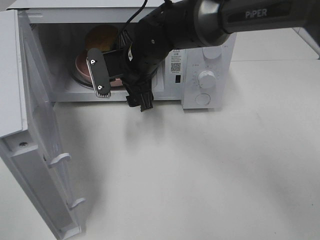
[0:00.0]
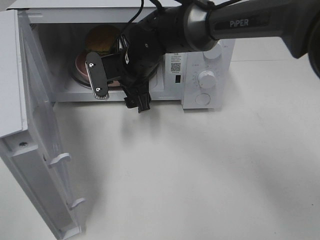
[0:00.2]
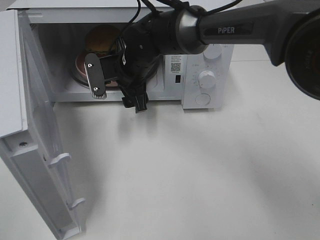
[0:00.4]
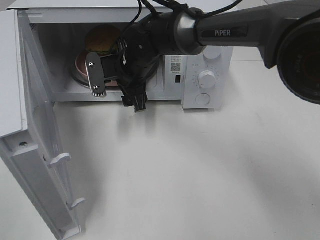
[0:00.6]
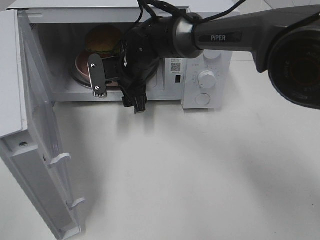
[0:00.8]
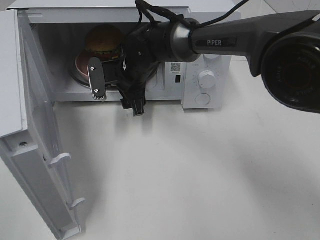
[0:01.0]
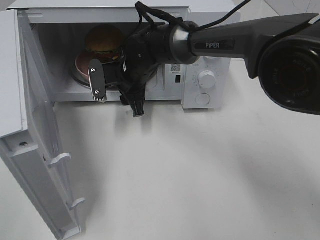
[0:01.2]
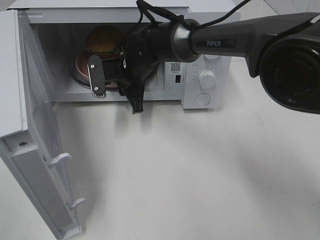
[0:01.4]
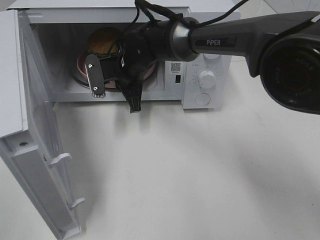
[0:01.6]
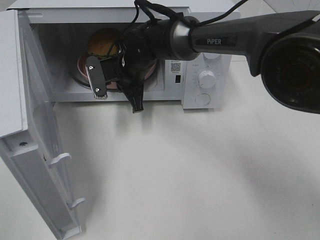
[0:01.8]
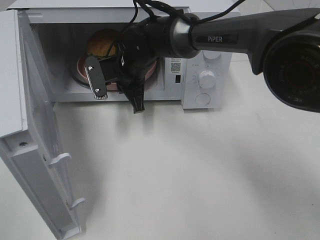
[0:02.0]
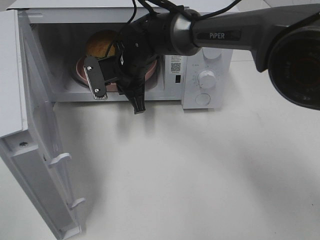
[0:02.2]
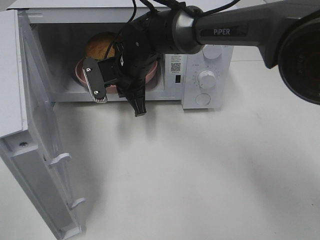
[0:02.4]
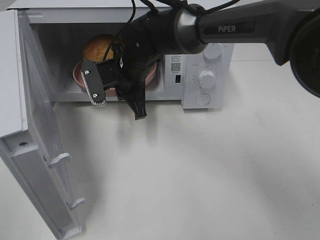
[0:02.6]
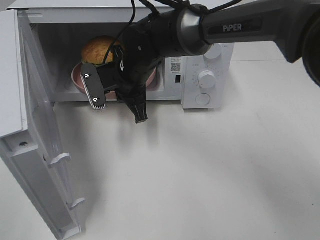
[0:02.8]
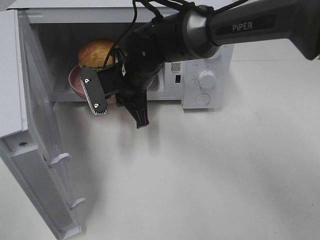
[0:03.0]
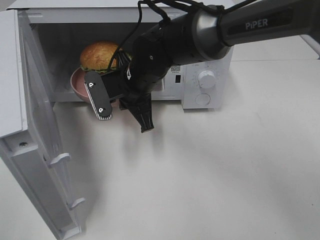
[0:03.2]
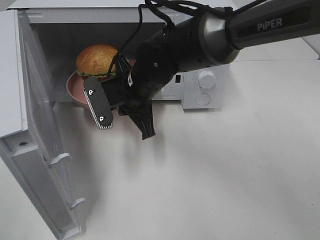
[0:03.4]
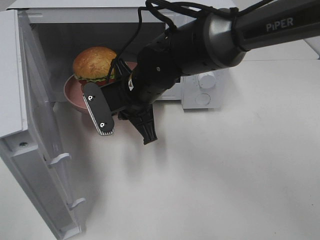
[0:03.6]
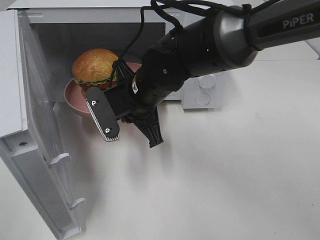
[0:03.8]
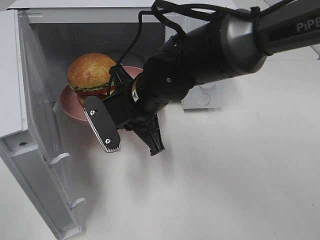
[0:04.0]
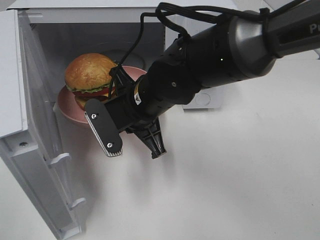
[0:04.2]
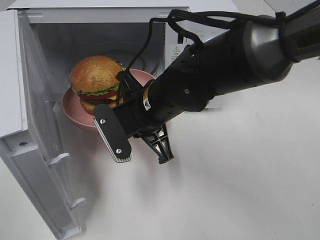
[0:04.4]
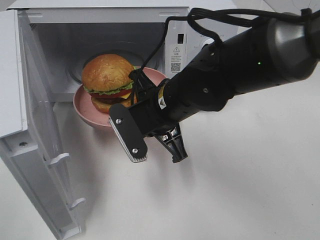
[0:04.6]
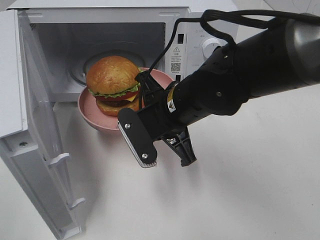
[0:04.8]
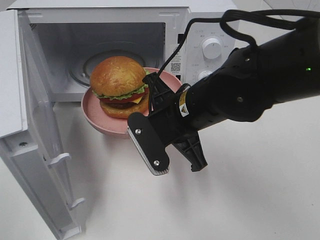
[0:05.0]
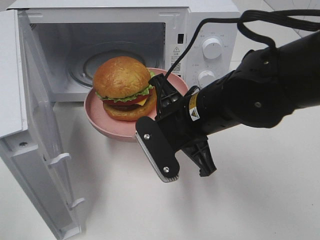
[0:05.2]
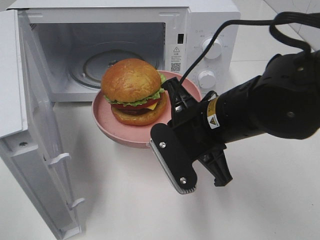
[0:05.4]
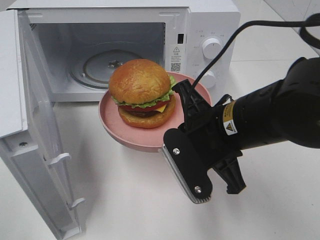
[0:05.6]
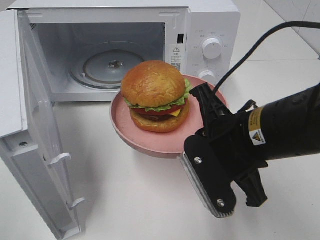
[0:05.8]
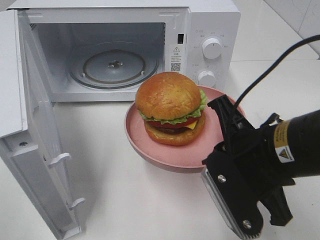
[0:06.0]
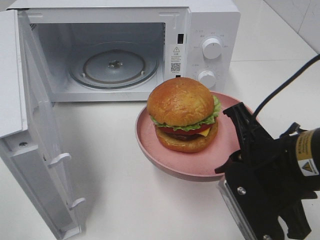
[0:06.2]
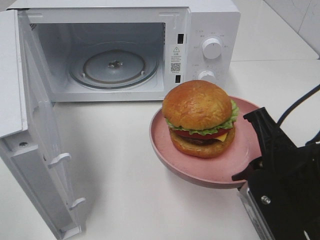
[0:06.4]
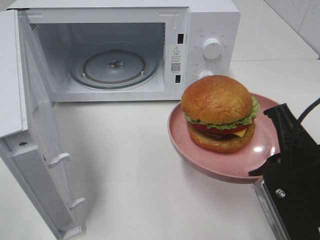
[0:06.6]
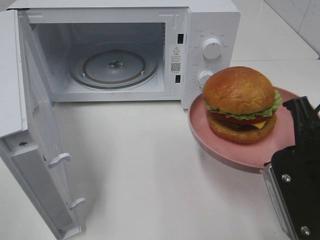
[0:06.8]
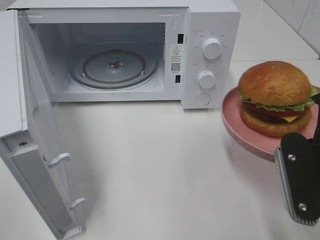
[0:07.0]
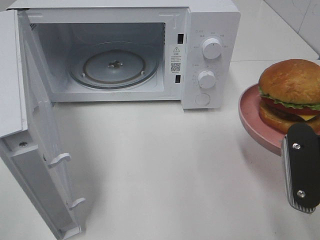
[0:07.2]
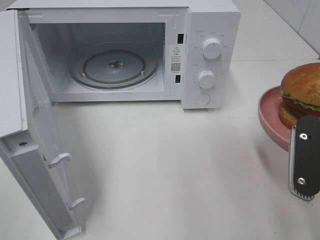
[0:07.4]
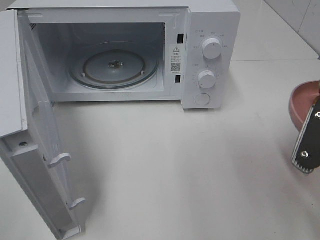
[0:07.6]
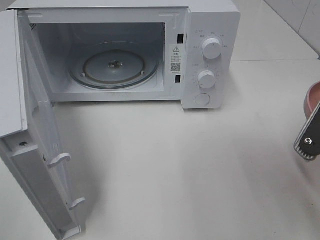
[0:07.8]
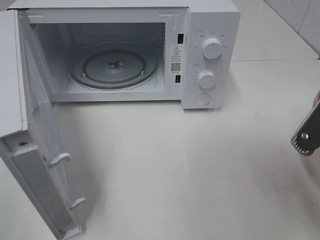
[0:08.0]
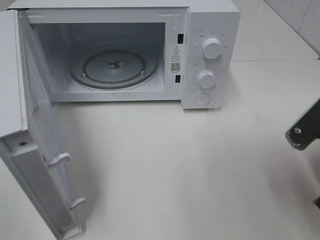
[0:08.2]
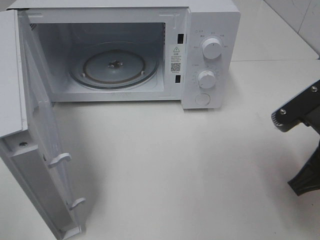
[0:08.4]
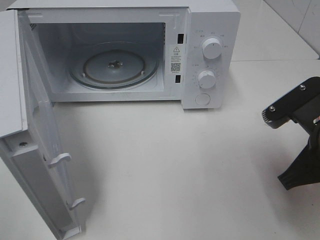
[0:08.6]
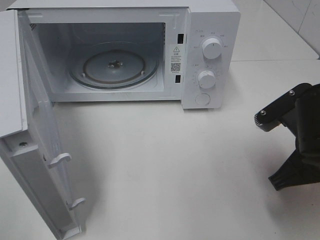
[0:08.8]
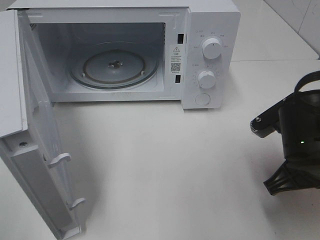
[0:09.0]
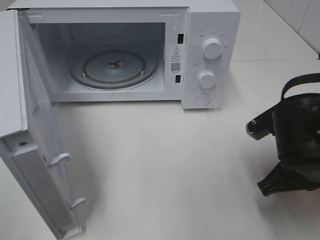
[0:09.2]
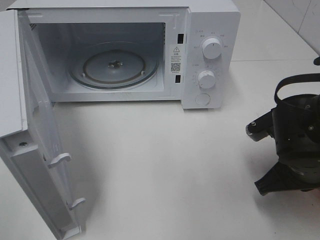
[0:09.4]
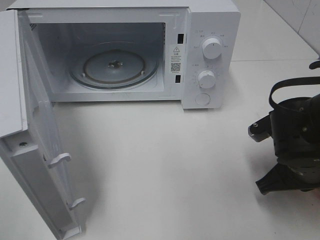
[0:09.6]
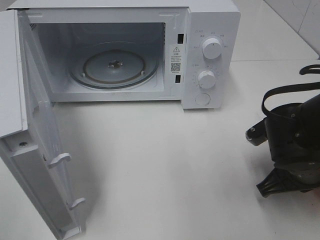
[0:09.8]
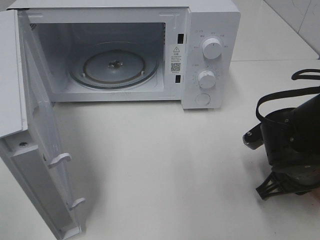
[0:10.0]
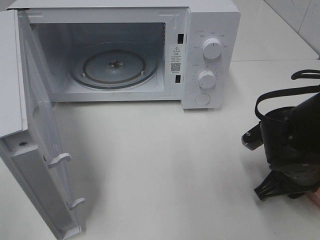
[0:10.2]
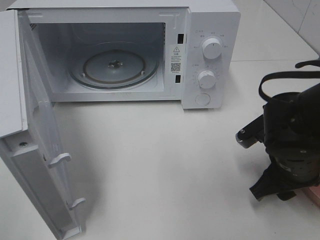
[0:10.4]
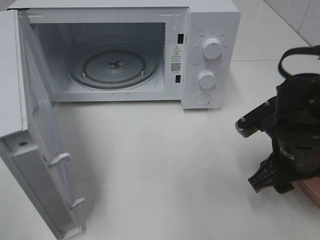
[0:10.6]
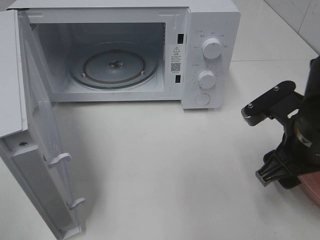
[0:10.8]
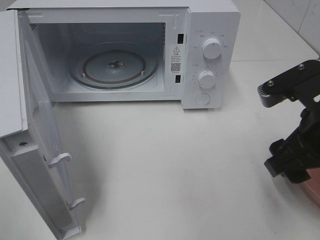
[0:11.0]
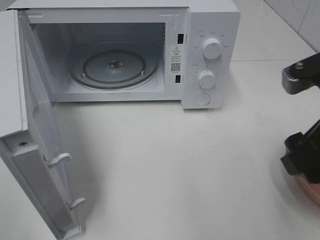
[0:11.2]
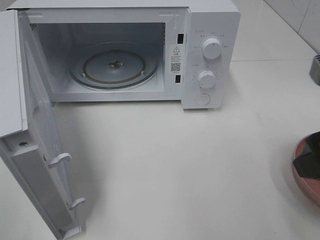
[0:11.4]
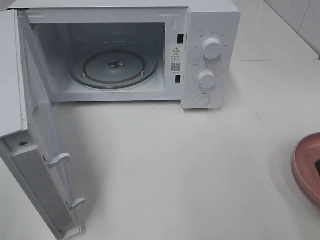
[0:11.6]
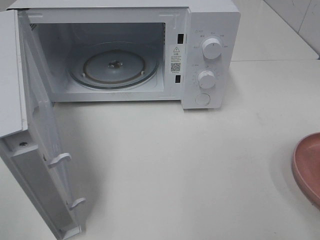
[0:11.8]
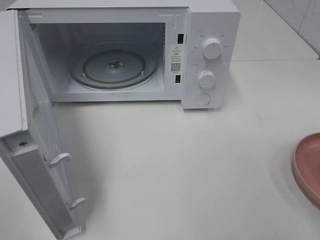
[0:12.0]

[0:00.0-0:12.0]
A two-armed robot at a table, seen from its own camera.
Task of the whole recording: Heat the burger.
Step, 0:01.6 to 0:10.2: Right hand: place the plate on the table.
0:00.0 to 0:01.6: The right gripper shifts by some 5 cm, and closes up.
0:01.6 to 0:03.0: The right gripper travels backward by about 5 cm.
0:03.0 to 0:04.4: The right gripper is displaced backward by roughly 10 cm.
0:04.4 to 0:06.0: The right gripper is displaced to the right and backward by some 20 cm.
0:06.0 to 0:07.6: The right gripper heads to the right, covering some 10 cm.
0:07.6 to 0:09.0: The right gripper heads downward and forward, covering some 10 cm.
0:09.0 to 0:10.4: The right gripper opens its fingers.
0:10.4 to 0:12.0: The right gripper is displaced upward and backward by some 25 cm.

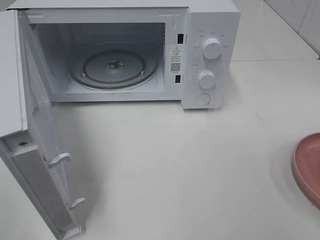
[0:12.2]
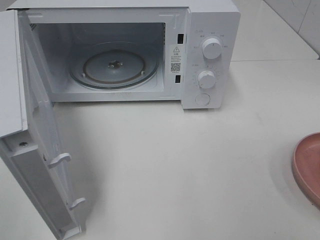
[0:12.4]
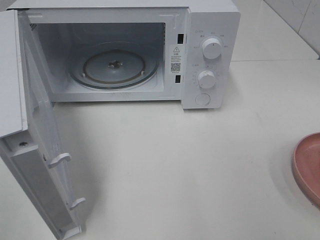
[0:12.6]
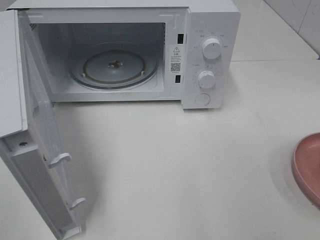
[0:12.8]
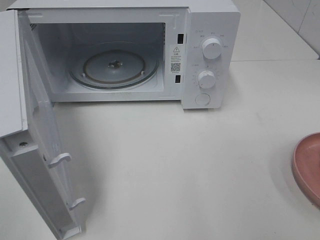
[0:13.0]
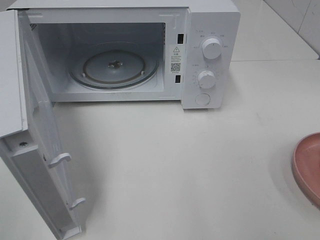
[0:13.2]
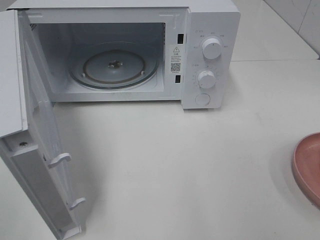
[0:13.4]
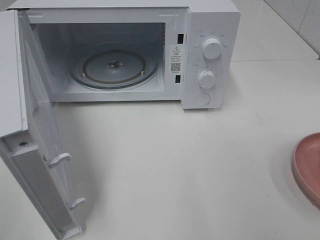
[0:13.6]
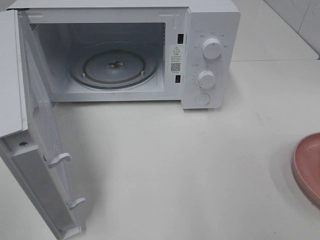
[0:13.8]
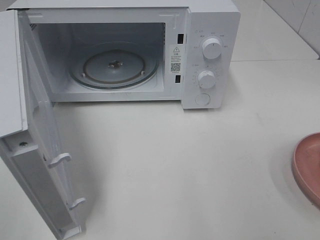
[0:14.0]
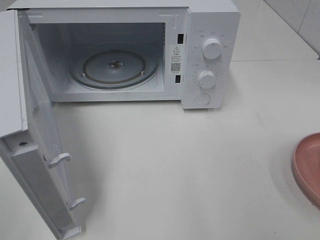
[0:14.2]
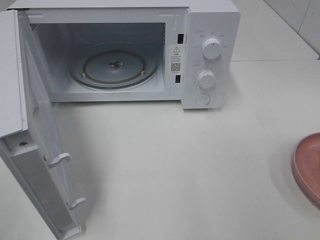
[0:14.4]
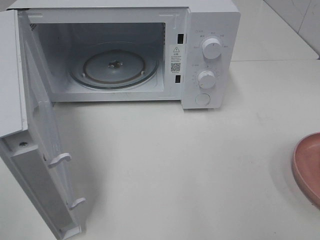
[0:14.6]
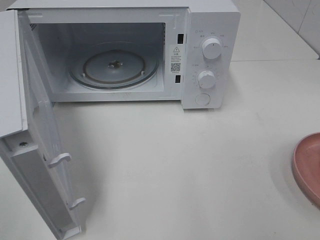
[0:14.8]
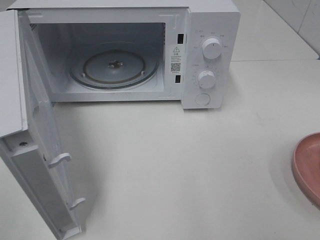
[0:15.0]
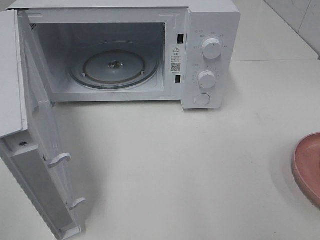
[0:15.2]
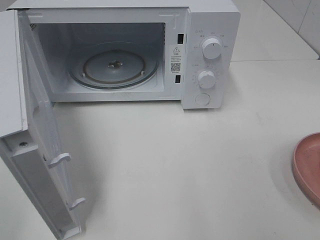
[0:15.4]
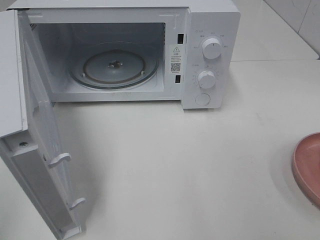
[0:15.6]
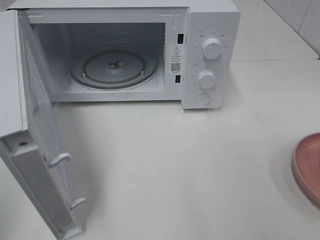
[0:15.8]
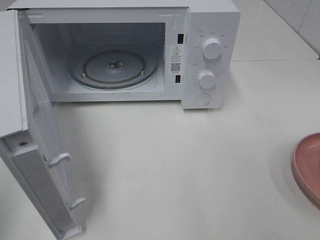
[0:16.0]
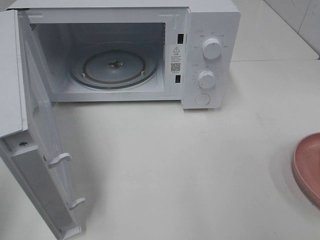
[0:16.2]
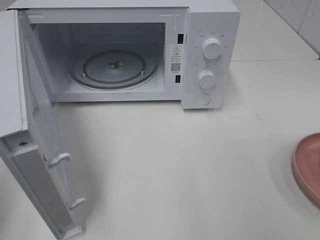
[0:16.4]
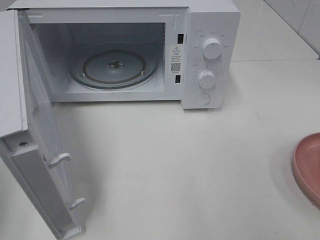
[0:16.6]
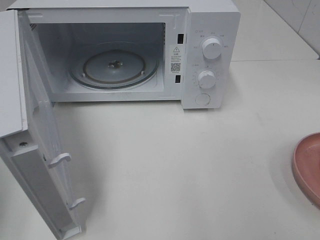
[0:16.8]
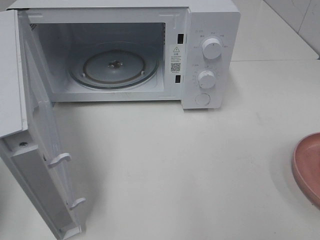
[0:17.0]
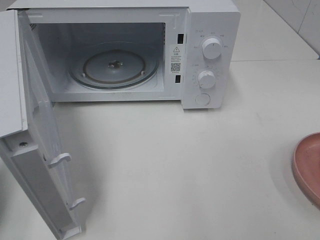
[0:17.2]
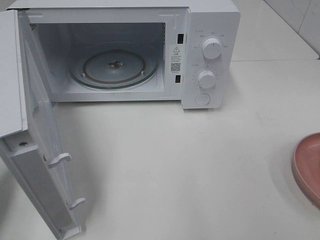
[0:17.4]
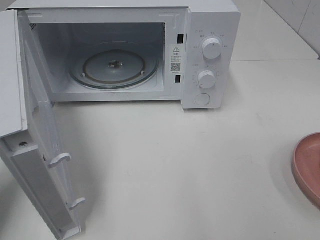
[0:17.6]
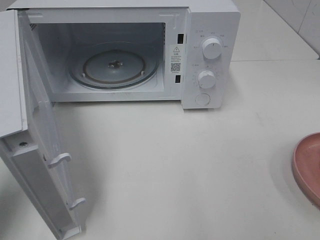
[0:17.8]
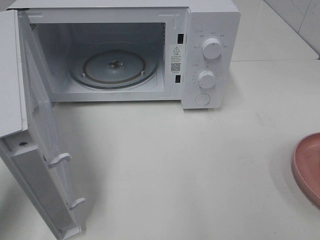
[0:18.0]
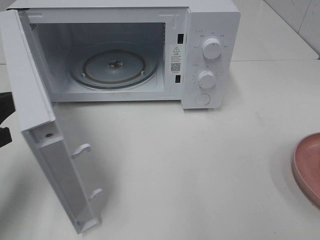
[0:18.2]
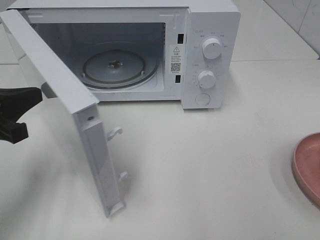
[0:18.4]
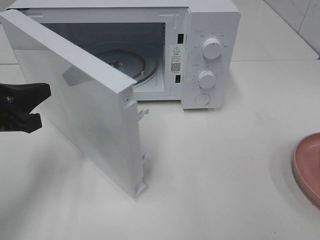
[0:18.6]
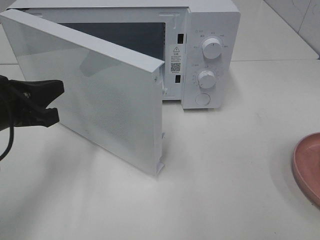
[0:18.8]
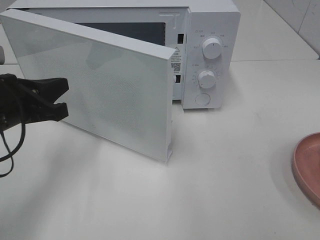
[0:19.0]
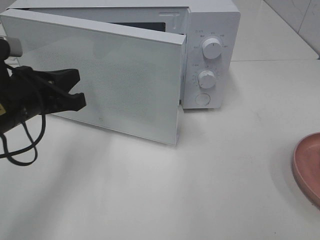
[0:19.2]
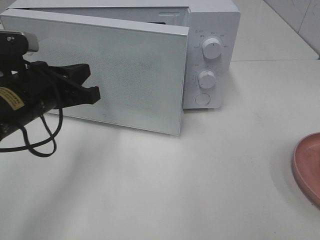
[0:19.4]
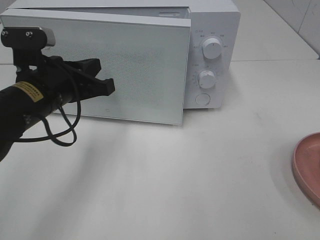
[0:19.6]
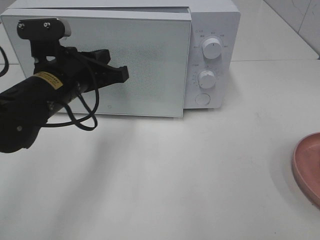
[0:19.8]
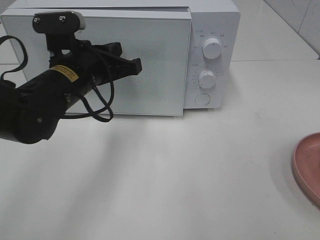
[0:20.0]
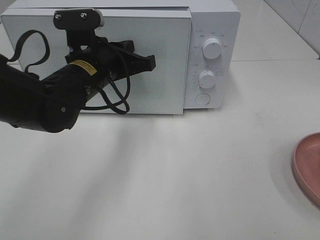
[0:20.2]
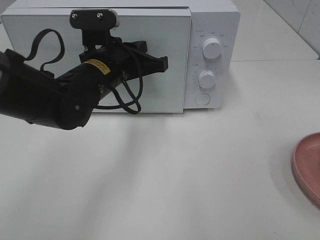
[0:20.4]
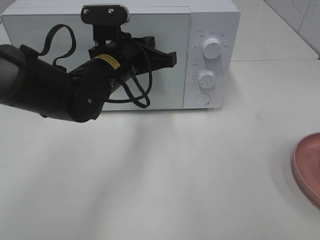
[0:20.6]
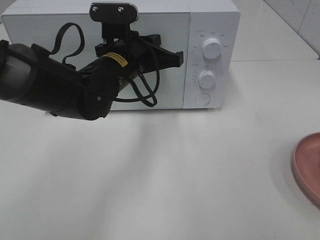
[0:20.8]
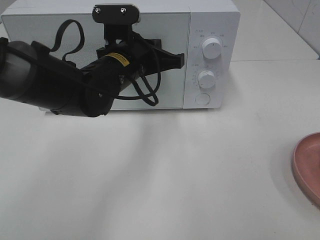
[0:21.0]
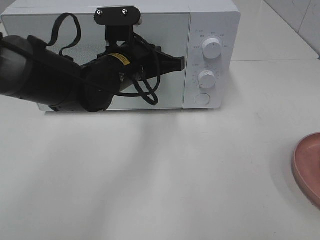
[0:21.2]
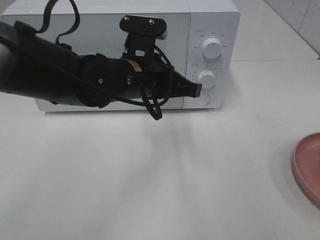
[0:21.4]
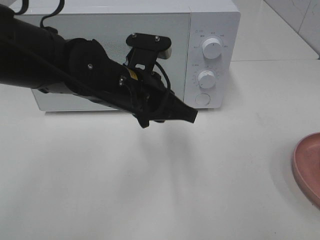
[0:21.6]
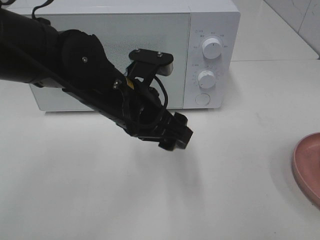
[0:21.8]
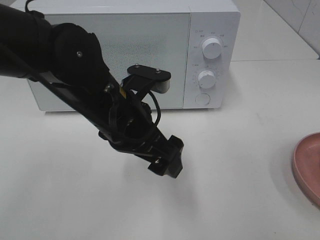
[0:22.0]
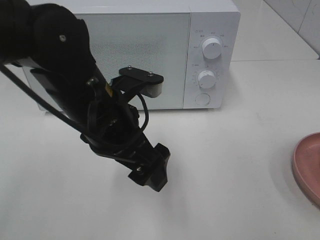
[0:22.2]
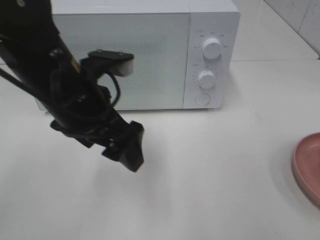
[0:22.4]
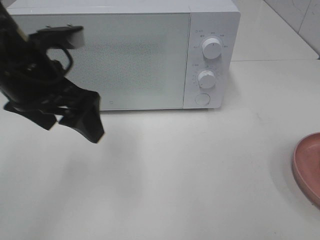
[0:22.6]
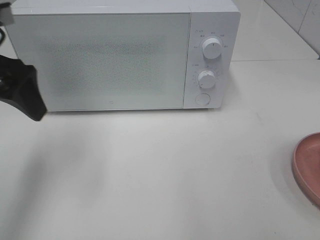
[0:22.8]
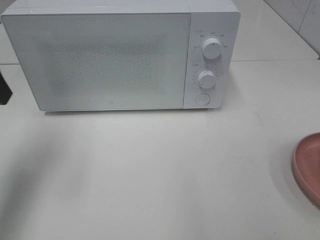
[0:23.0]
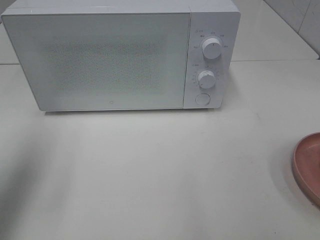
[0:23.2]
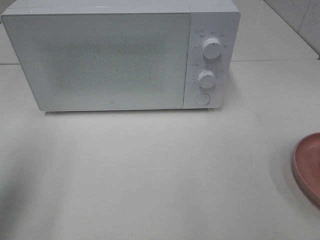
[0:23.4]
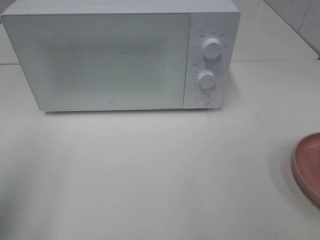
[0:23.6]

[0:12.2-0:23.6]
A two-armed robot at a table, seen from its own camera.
Task of the whole recording: Heat the burger.
Step, 0:12.2 to 0:21.2: Left hand: close the microwave door.
0:13.6 to 0:15.0: Both grippers stay about where they are.
0:16.4 to 0:17.8: The left gripper heads forward and downward, covering approximately 10 cm.
0:17.8 to 0:19.4: The left gripper goes about 15 cm to the right and forward.
0:19.4 to 0:20.8: The left gripper is displaced to the right and forward by roughly 15 cm.
0:20.8 to 0:22.2: The left gripper moves backward, roughly 10 cm, and opens.
0:22.2 to 0:23.6: The left gripper is displaced to the left and backward by some 25 cm.
